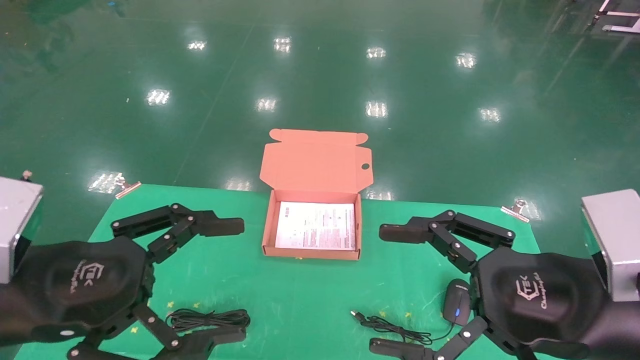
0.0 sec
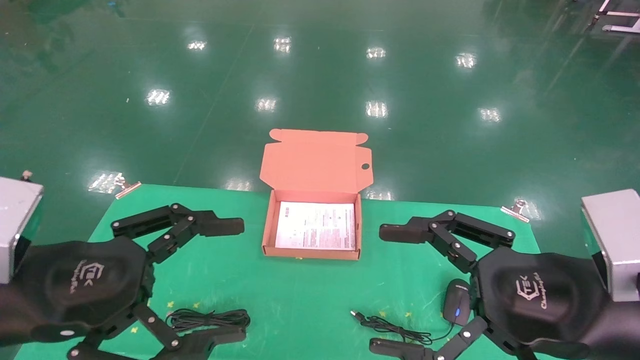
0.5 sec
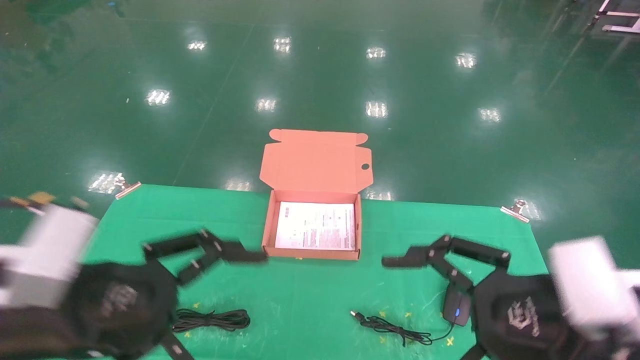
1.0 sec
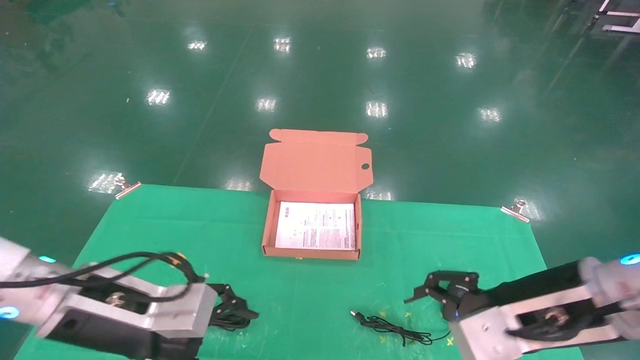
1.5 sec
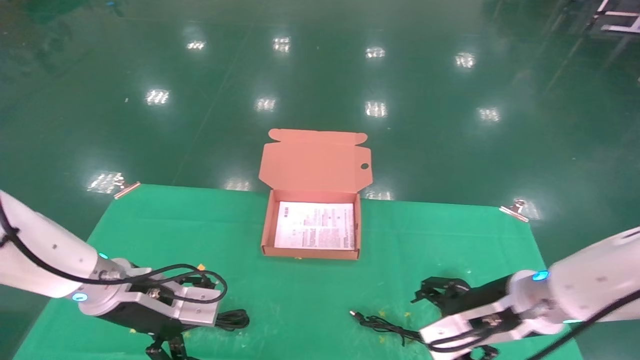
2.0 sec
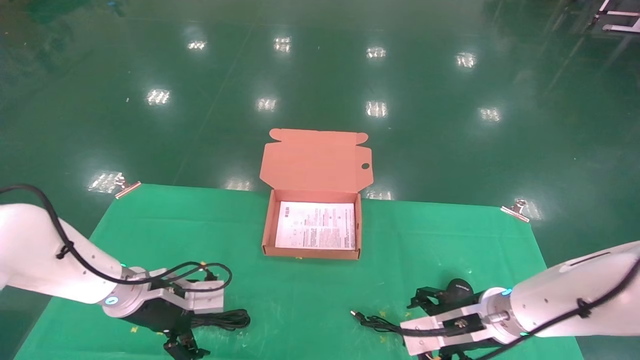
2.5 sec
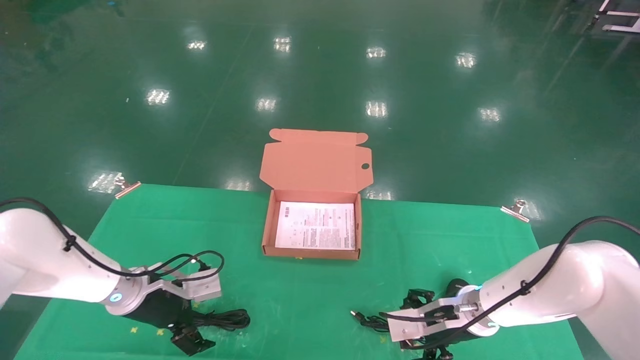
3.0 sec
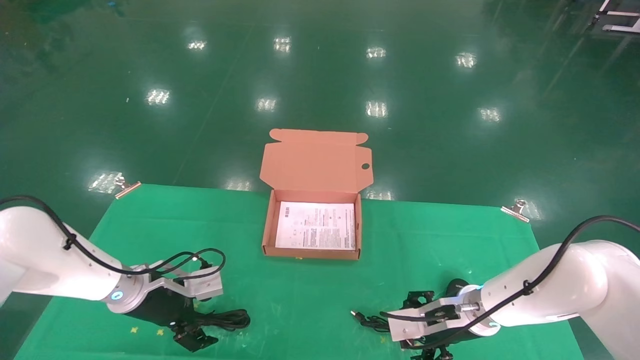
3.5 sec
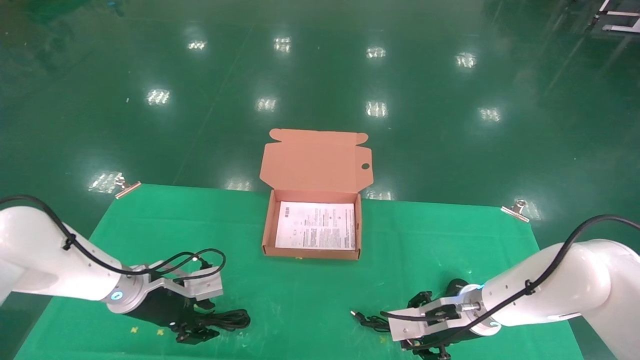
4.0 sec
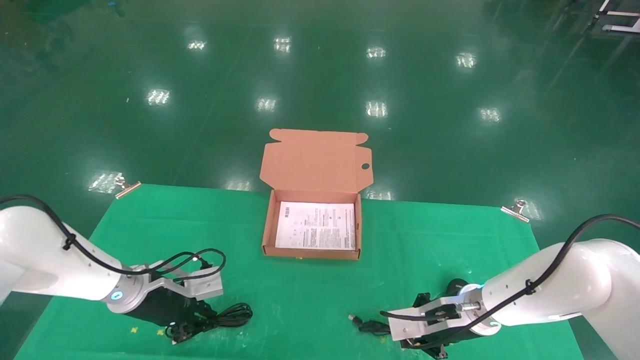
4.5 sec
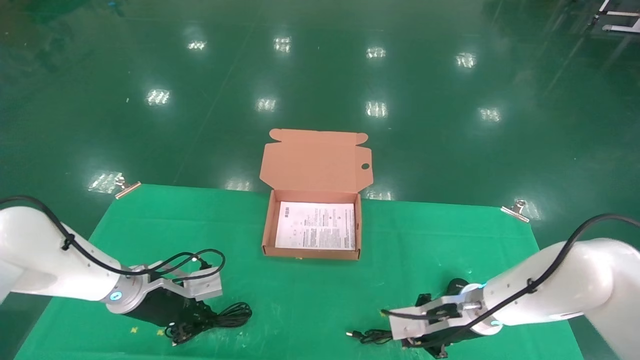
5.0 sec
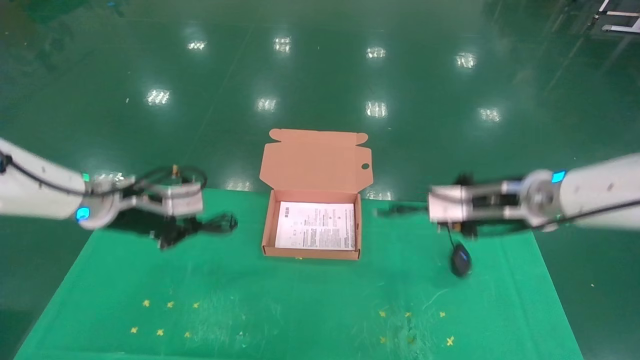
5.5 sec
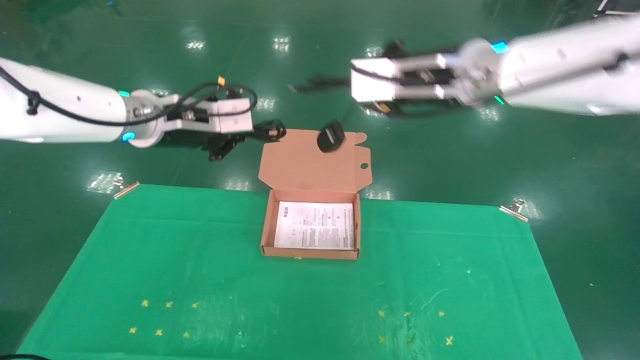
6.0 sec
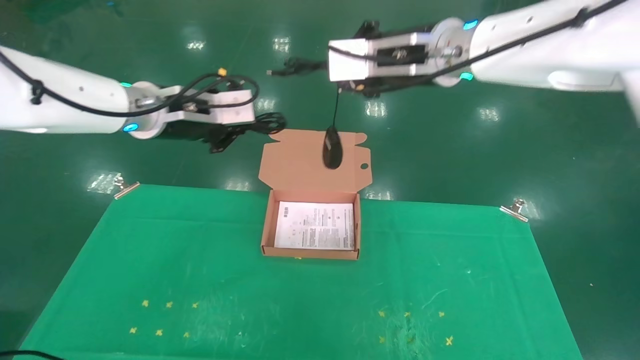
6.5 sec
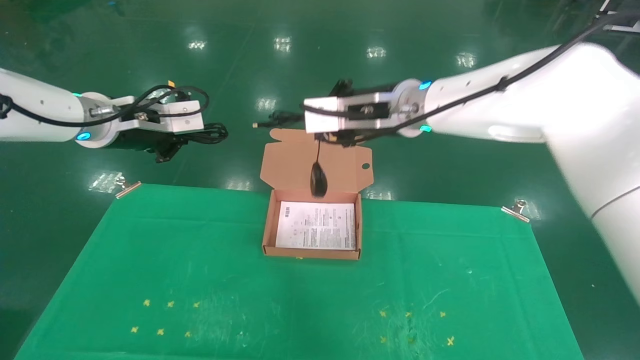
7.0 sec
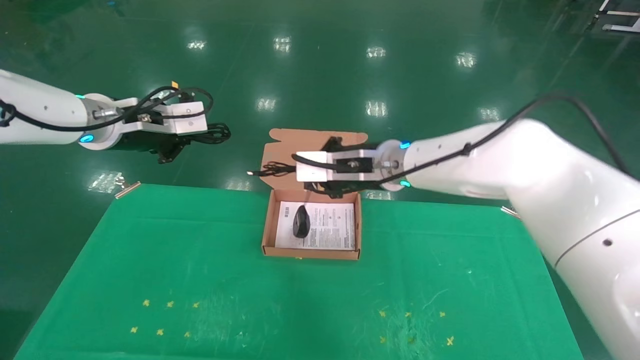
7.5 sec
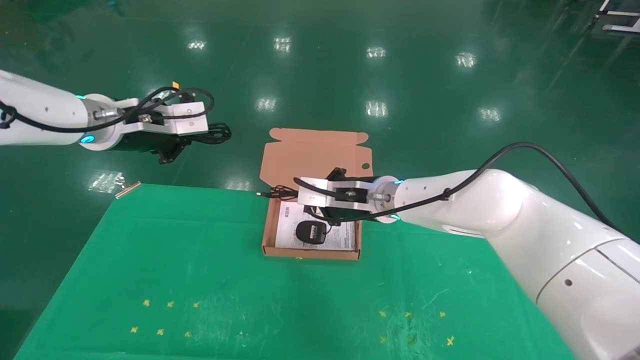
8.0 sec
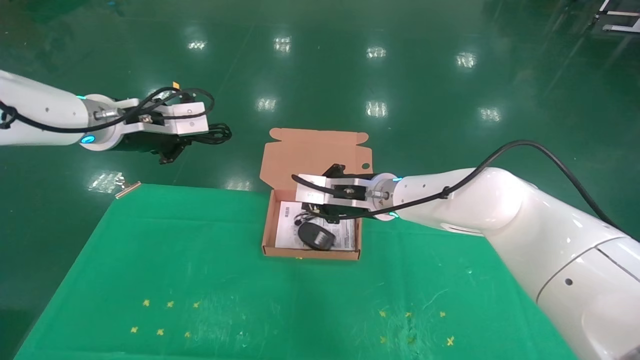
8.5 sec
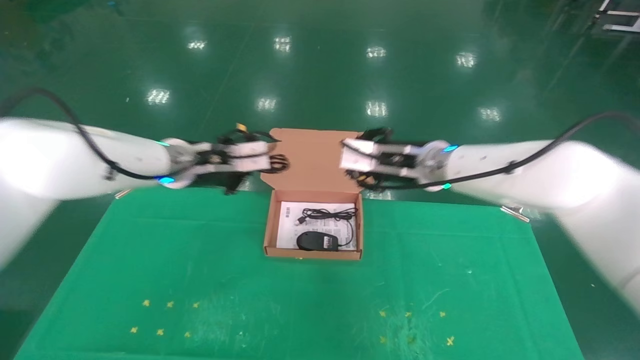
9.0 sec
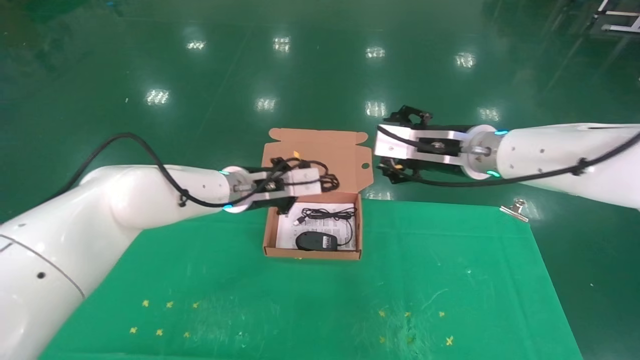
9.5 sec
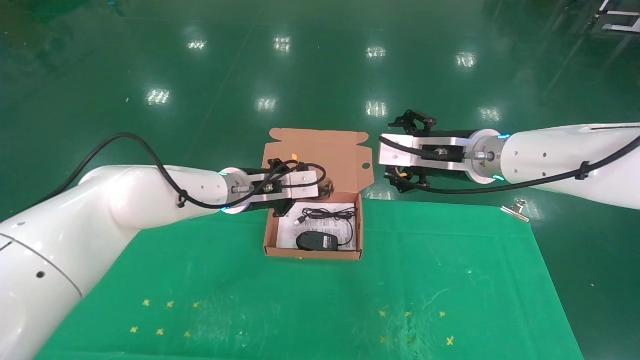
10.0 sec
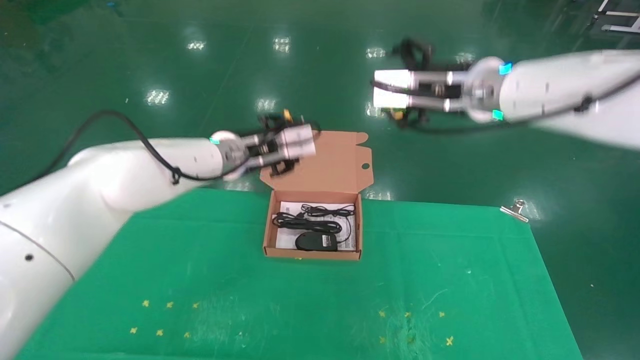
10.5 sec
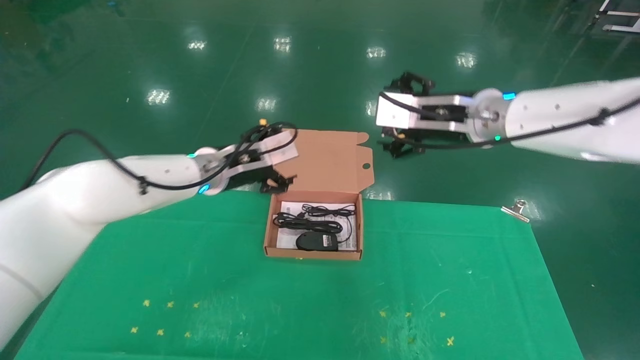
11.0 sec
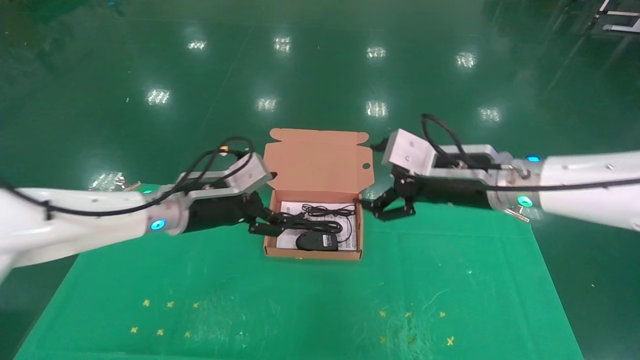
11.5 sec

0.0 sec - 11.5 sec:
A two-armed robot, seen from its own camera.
Task of the whole recording: grasp data cable left put into box grasp mouse right put into box.
Step, 1.0 sec - 5.0 sec: Grab and pick up both the mouse and power cord from the accessory packaging area at the same time.
Step, 5.5 sec - 10.5 sec: Place the mouse and power cord into the box.
0.0 sec - 2.0 sec: Both grippers travel together forward and downward, approximately 20 cm.
2.0 sec - 4.0 sec: Both grippers move forward and downward, roughly 10 cm. The left gripper closes up, while the right gripper closes up.
4.0 sec - 6.0 sec: The grippers both shift upward by approximately 30 cm. The right gripper closes. Meanwhile the left gripper closes up.
6.0 sec - 7.5 sec: The left gripper heads to the left, covering approximately 5 cm. The right gripper goes about 15 cm downward, to the left and forward.
7.5 sec - 9.5 sec: The right gripper travels to the right by about 10 cm, and opens its fingers. The left gripper goes roughly 20 cm to the right and downward.
9.5 sec - 11.5 sec: The left gripper heads to the left, covering about 5 cm, and opens its fingers.
